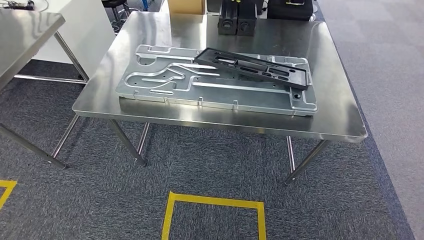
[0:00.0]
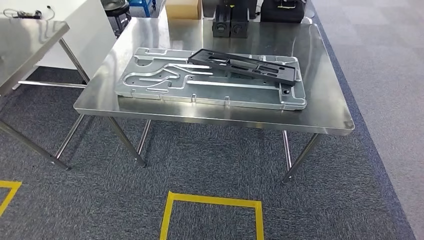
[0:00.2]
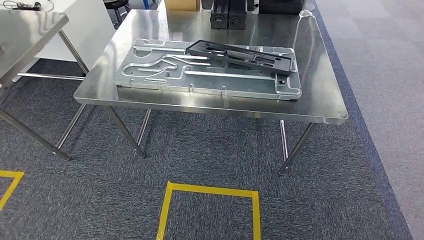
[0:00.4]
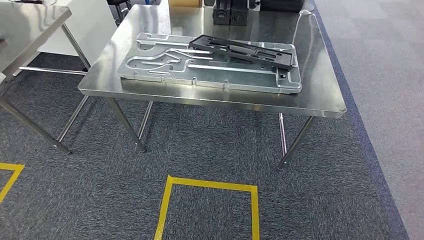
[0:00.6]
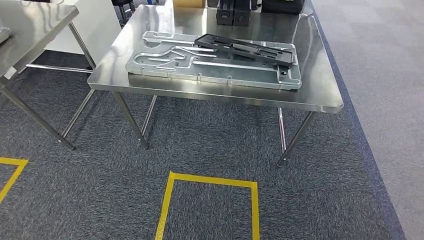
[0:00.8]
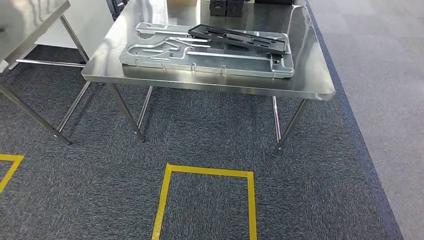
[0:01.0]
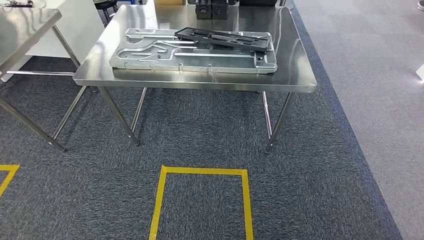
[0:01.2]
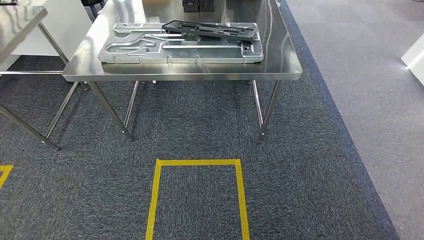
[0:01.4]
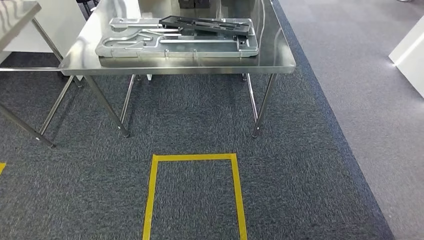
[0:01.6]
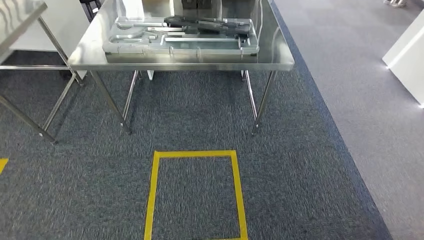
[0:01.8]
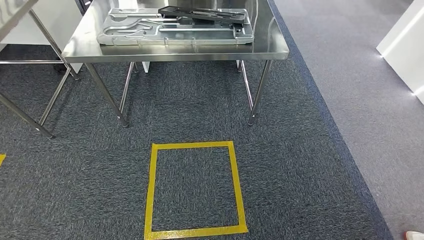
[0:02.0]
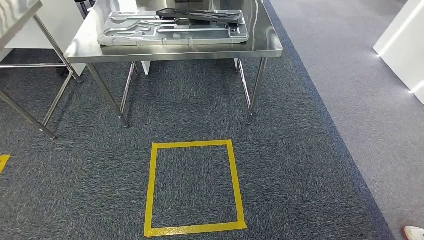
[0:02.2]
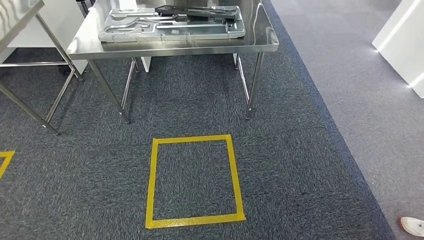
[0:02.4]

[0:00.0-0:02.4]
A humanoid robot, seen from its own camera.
Step, 0:00.0 to 0:02.4: Move to the initial position of the shelf.

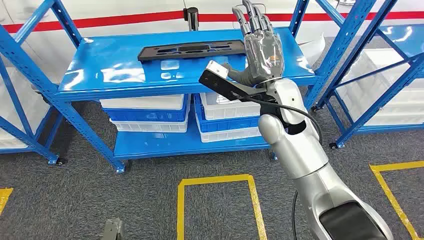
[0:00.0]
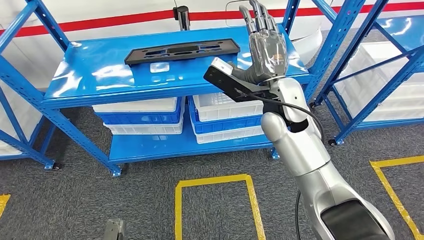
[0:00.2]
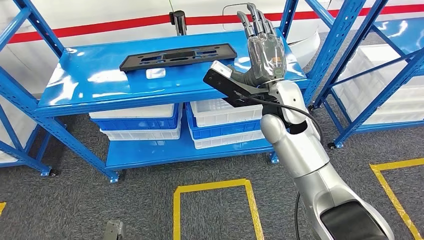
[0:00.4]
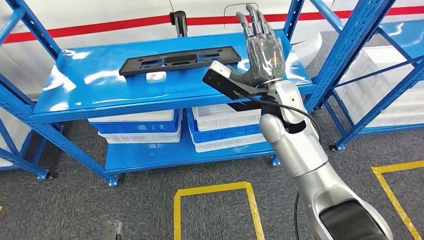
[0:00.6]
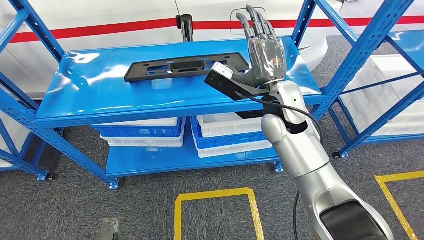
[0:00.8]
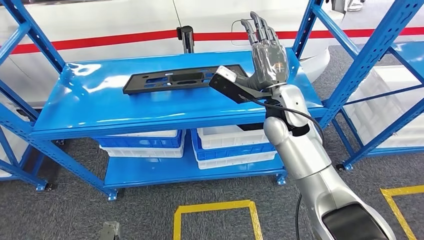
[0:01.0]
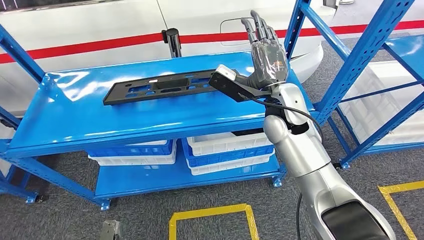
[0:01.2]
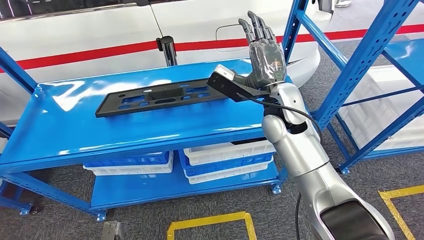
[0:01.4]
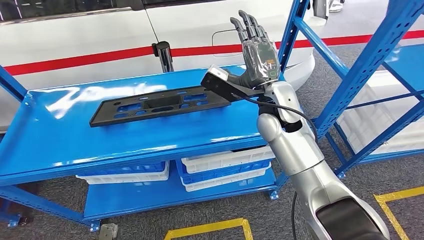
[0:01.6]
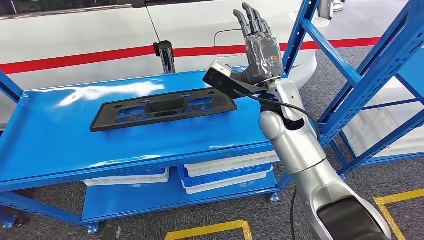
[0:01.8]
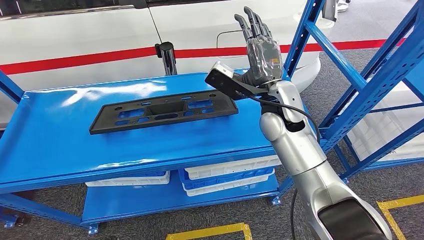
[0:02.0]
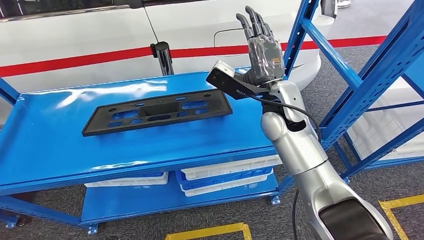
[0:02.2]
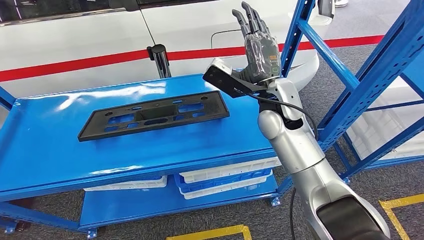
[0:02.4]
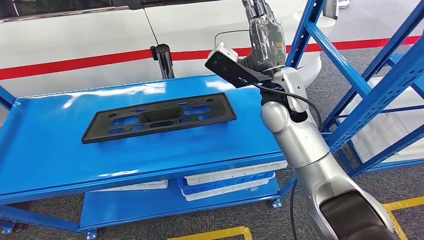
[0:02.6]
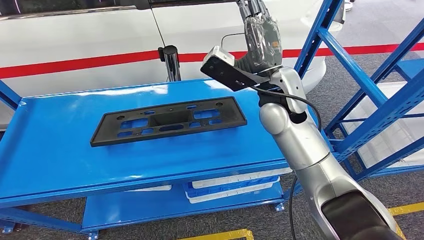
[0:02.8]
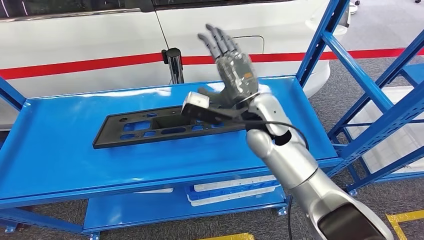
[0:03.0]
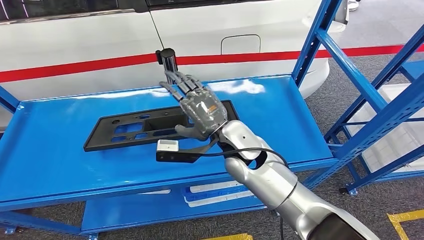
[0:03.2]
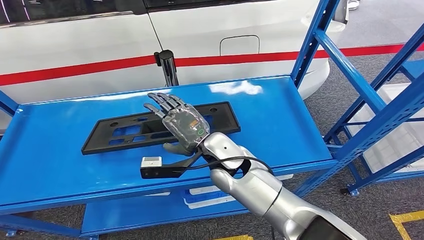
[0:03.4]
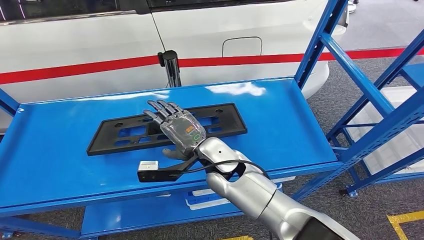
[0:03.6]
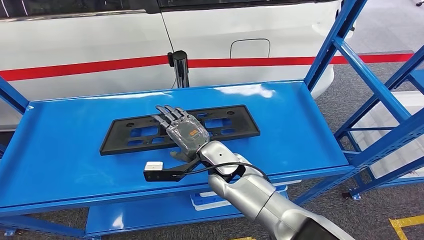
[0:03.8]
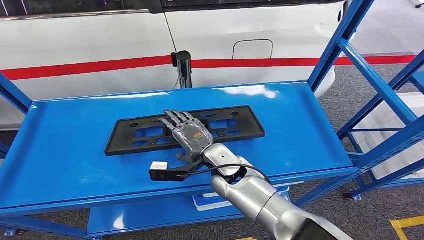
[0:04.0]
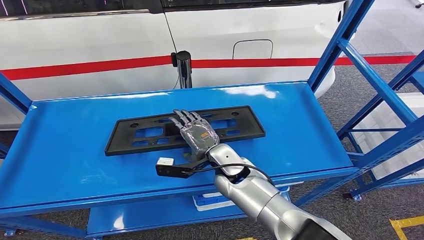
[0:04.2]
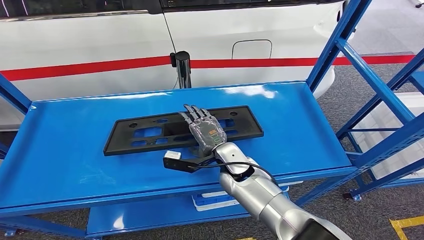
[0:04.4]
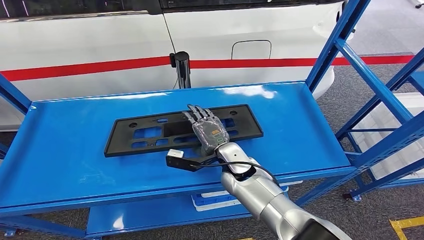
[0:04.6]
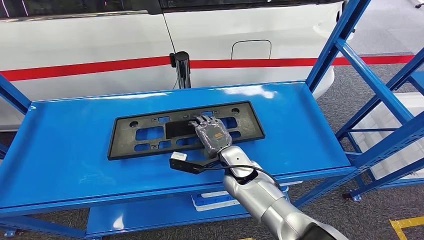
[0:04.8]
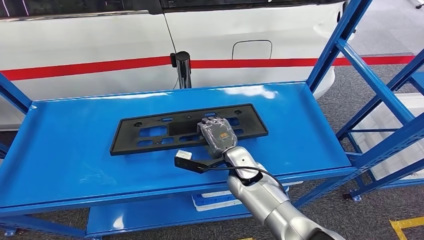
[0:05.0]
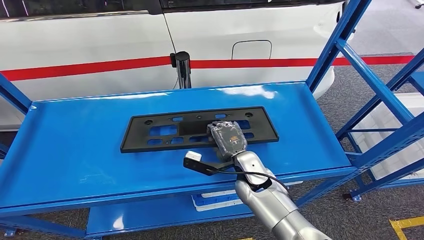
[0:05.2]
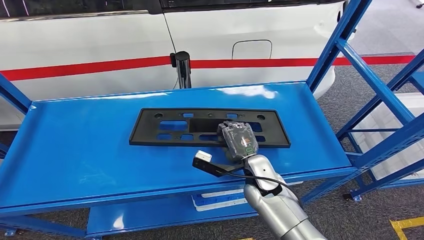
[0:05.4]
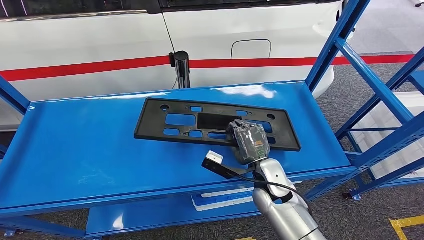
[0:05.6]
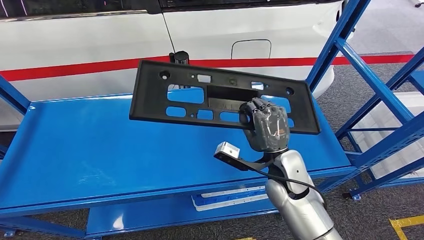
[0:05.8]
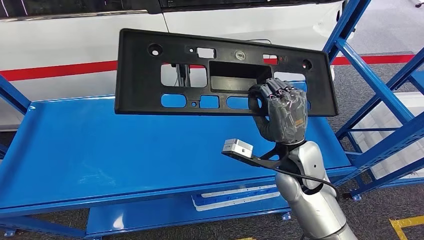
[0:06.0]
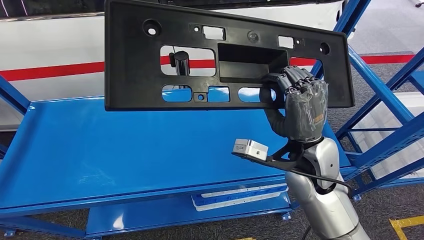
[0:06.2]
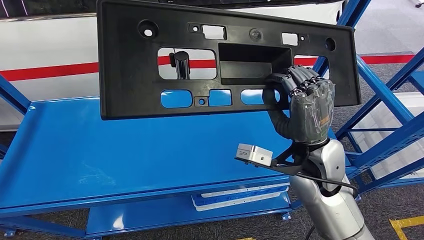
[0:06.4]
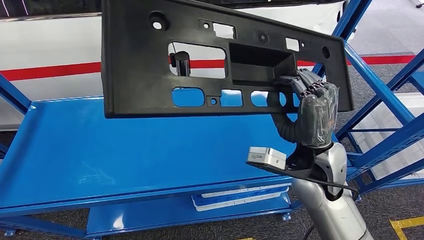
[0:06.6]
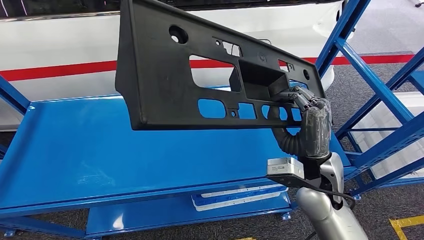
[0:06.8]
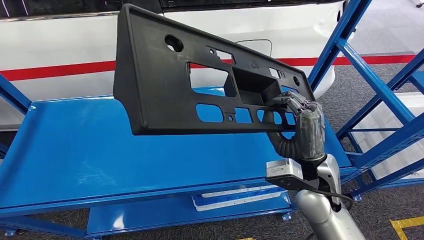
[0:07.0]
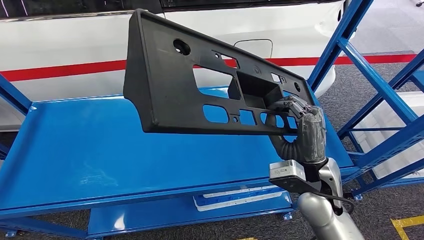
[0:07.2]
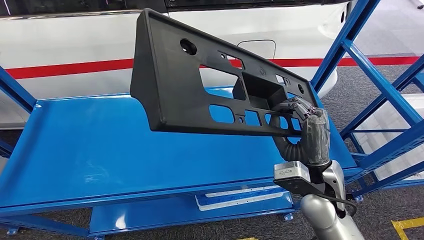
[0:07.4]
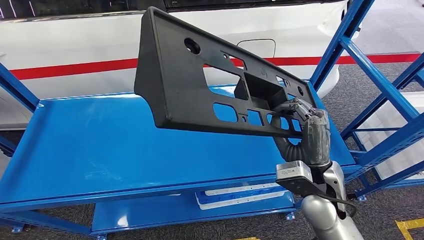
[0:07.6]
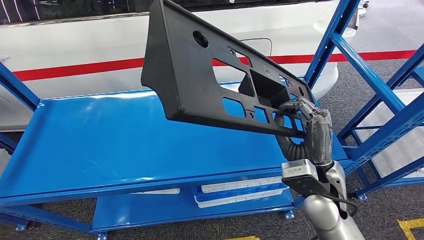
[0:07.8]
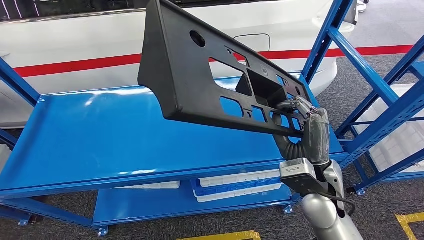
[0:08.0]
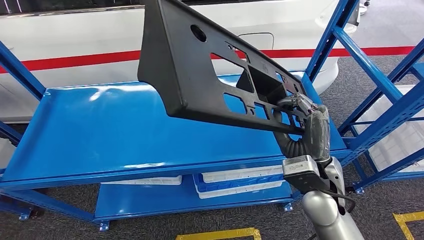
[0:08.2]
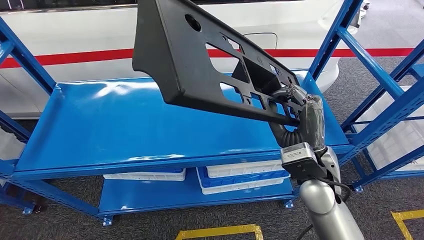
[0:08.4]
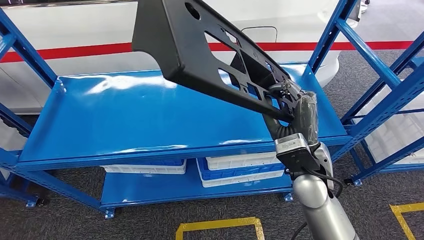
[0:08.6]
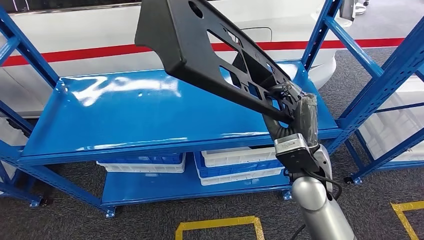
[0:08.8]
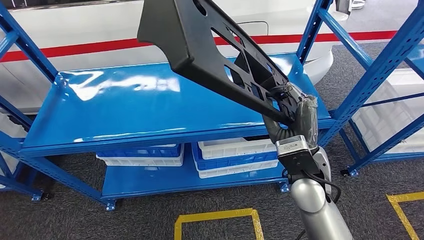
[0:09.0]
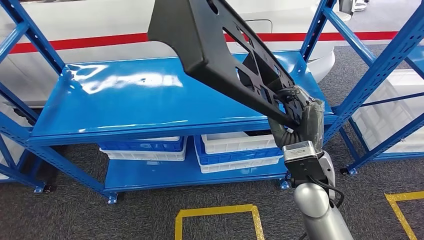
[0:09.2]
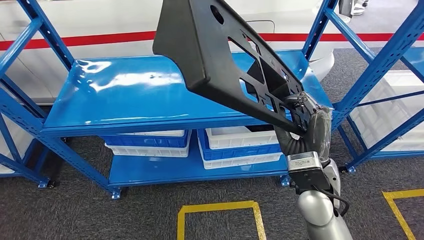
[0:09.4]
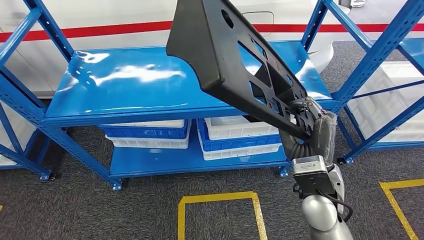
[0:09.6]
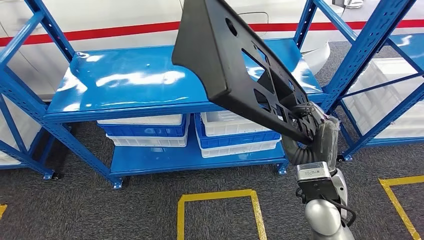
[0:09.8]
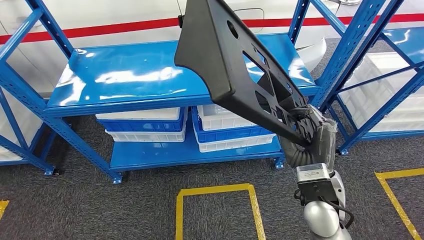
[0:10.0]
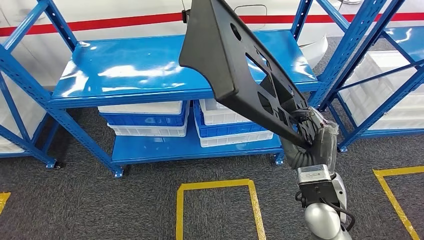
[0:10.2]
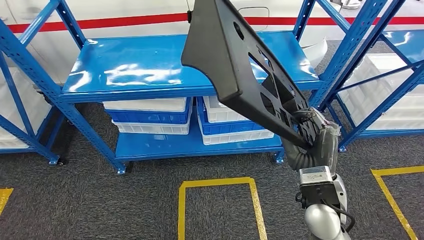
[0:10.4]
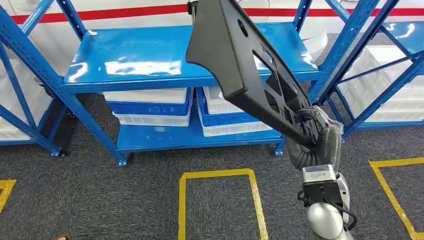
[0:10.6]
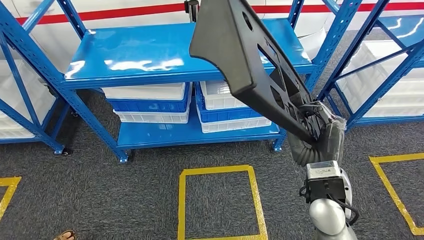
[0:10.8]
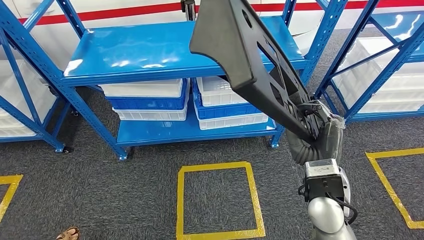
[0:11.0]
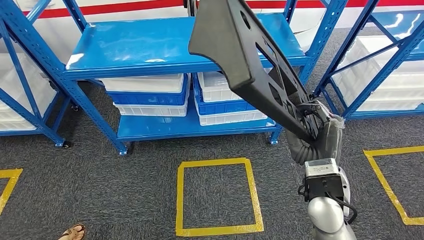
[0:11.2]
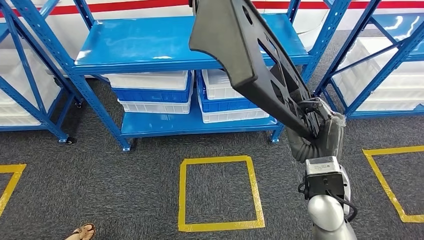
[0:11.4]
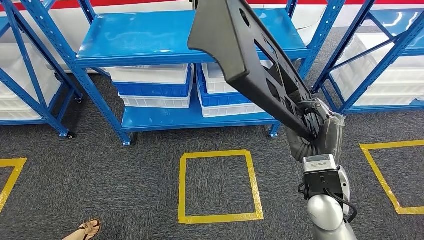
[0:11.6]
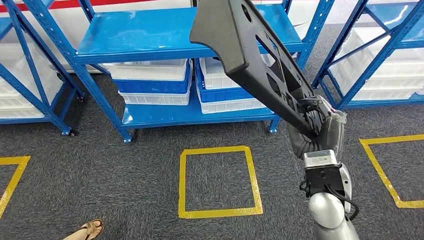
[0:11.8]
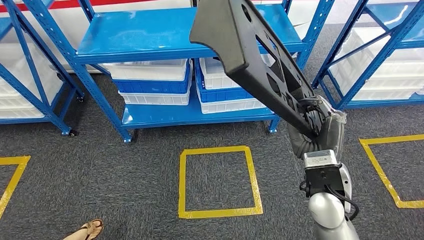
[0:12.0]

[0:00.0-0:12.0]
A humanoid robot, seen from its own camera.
Step, 0:00.0 to 0:11.4: Pick up the large material from the shelf.

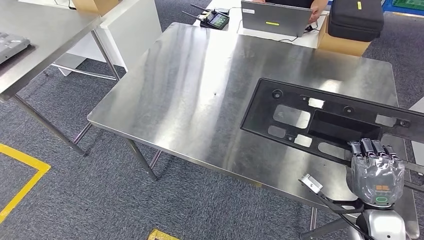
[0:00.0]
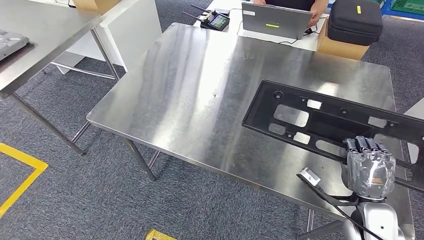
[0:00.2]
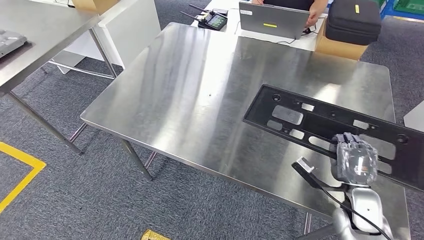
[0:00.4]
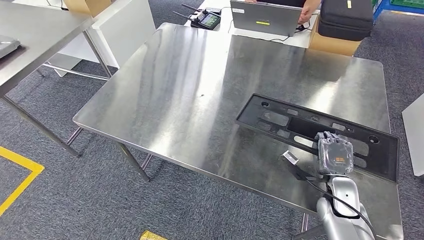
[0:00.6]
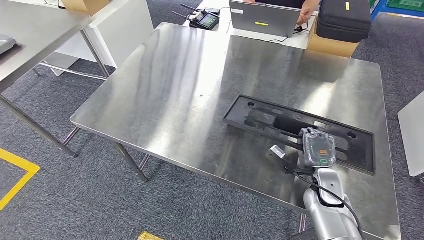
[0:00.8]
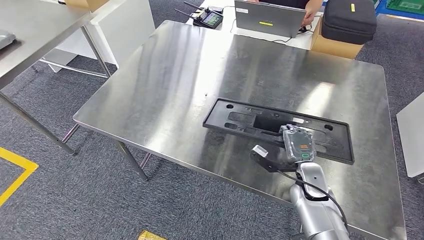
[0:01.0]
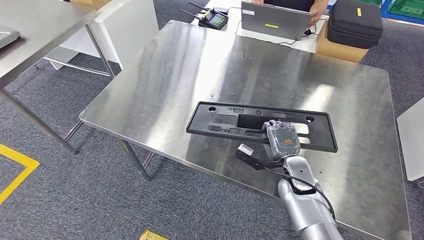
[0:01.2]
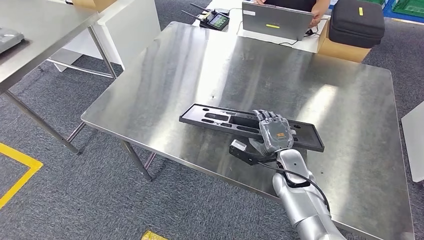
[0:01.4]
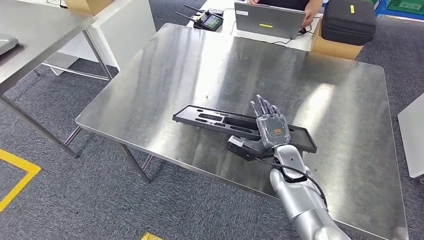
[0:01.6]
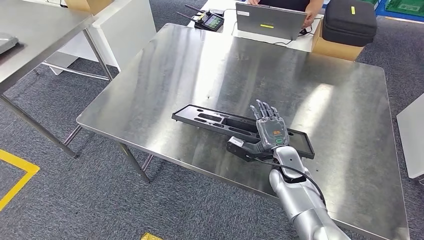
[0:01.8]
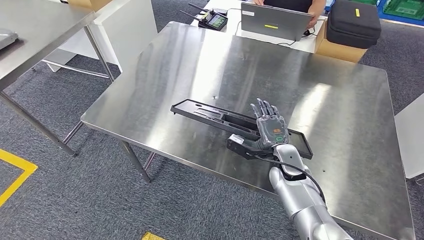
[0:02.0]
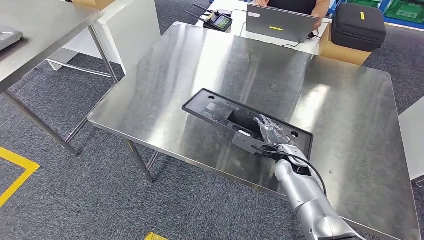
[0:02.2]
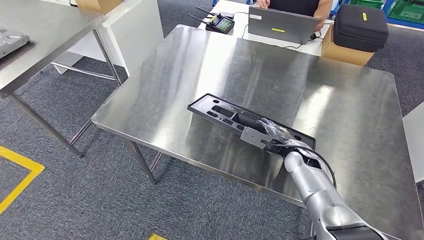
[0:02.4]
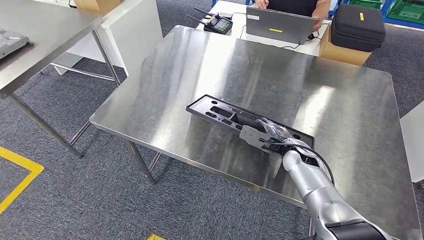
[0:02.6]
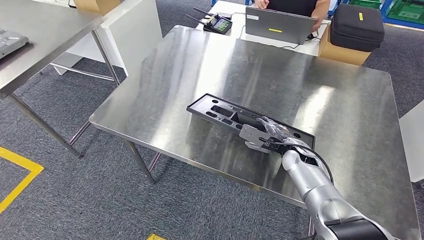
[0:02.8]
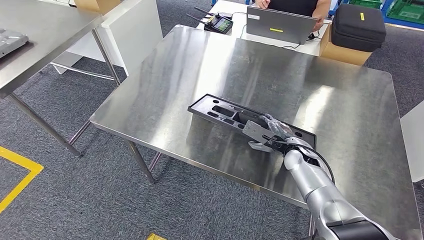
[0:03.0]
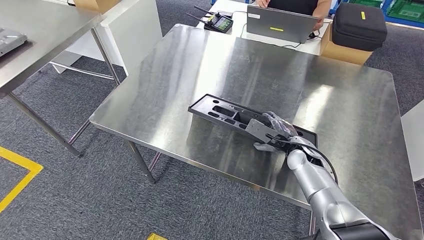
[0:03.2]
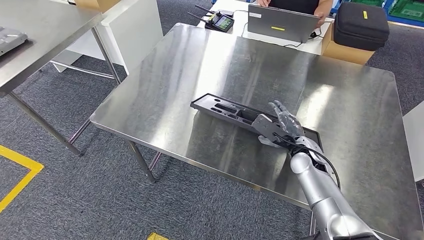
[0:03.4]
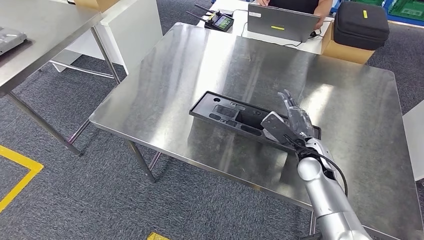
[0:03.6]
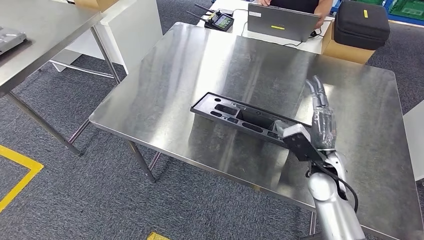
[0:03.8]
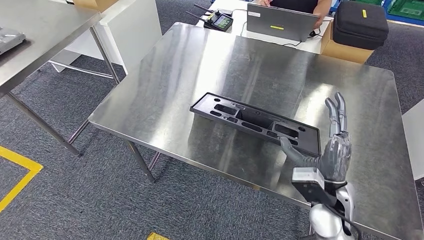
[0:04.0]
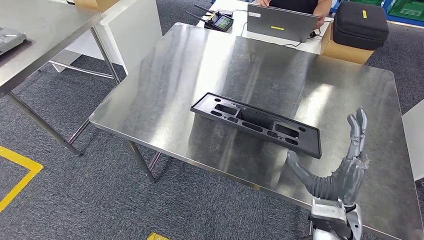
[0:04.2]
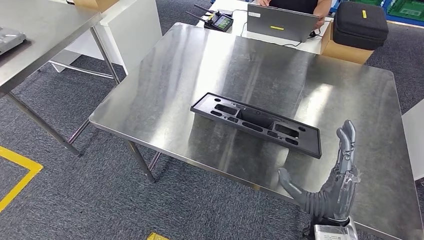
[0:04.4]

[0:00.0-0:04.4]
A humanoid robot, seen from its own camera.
0:03.0 to 0:04.4: The right hand goes about 25 cm backward.
